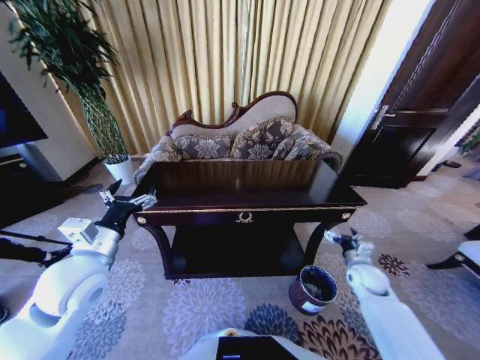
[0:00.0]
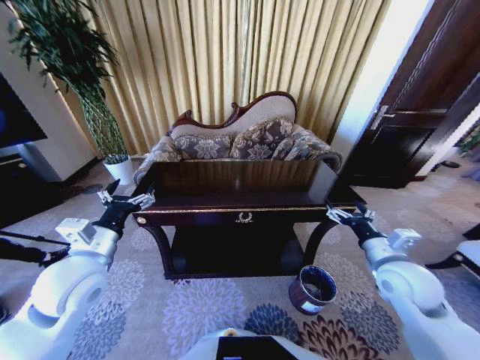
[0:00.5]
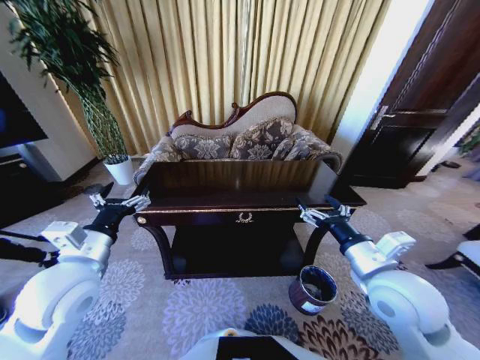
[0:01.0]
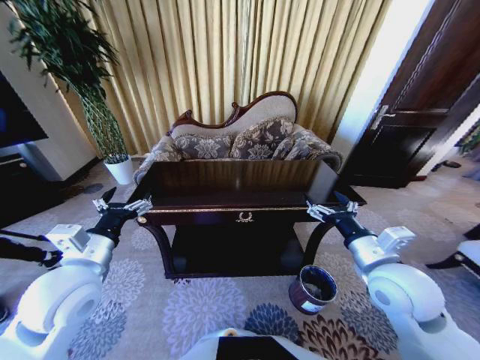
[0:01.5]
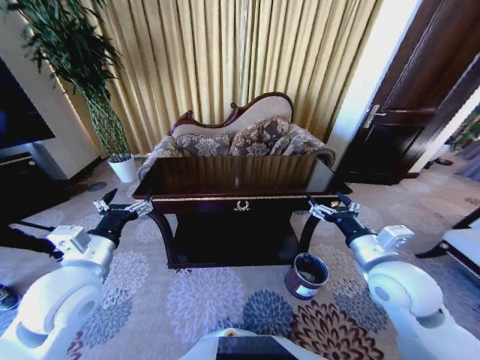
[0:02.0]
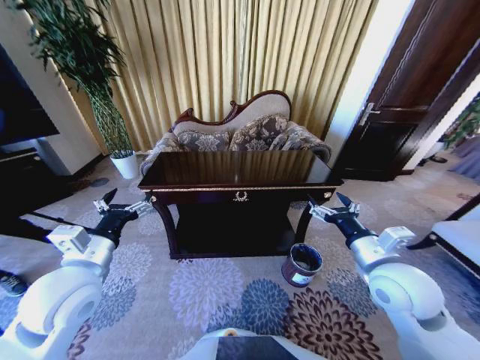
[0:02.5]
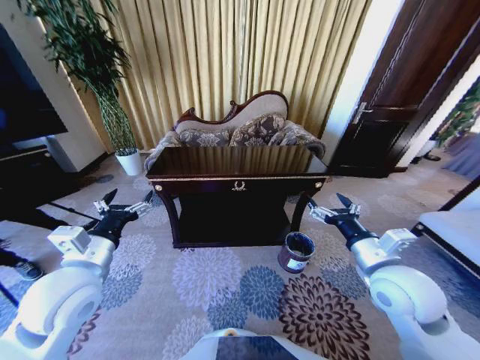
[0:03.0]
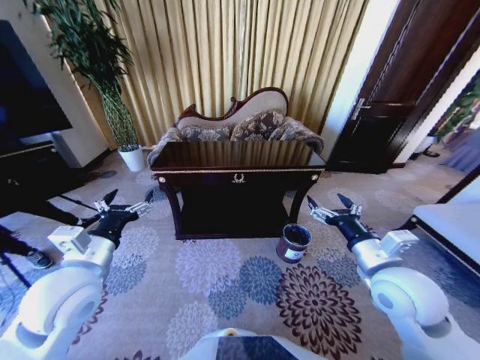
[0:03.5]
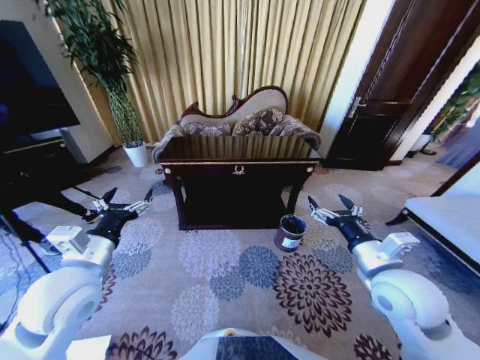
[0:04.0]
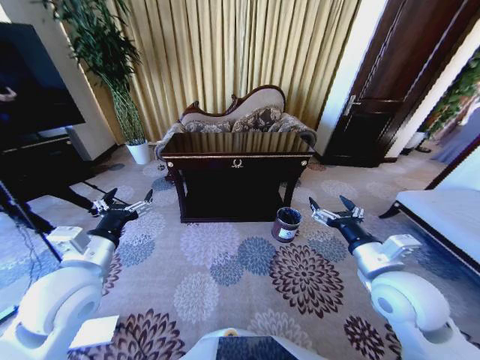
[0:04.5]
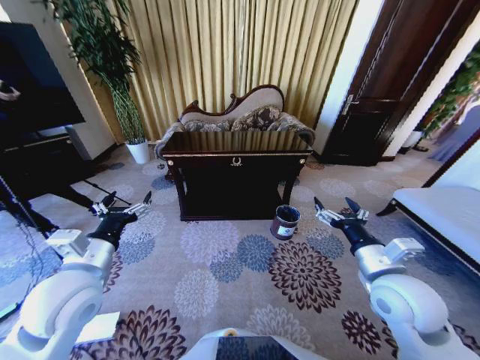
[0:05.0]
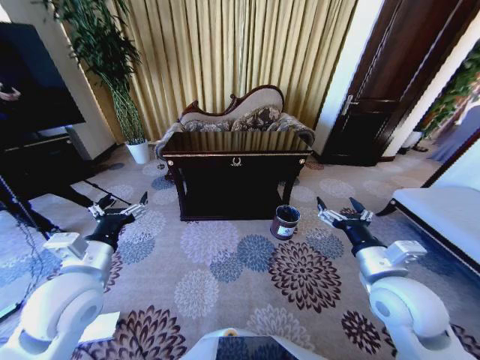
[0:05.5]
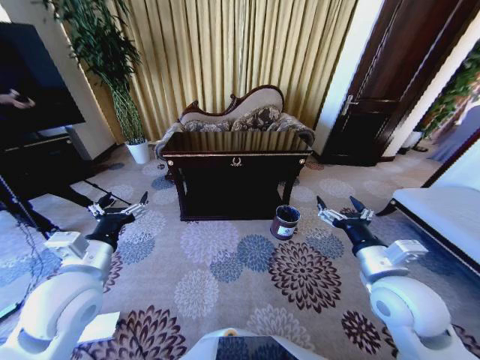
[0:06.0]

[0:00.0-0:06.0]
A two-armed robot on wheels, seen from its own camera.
Task of the whole recording: Move to the front of the table and place the trash on the table into the trash bin.
0:00.0 to 0:02.0: The right gripper goes about 25 cm upward and to the left.

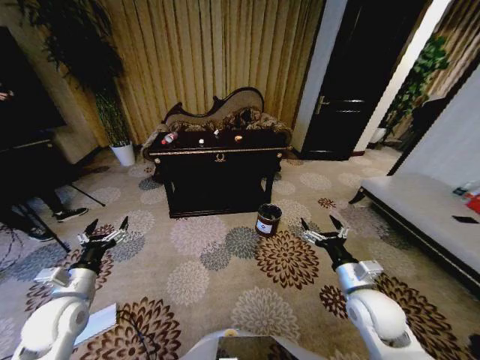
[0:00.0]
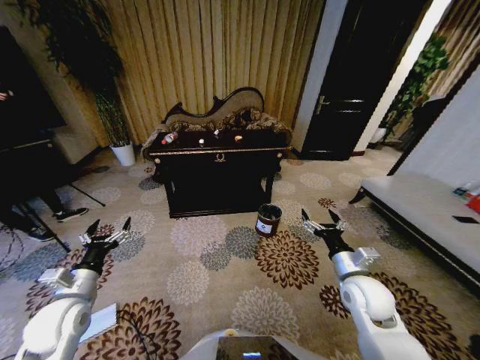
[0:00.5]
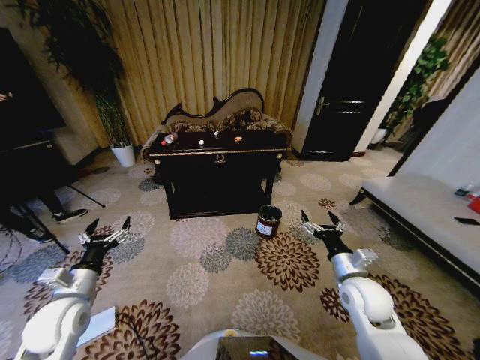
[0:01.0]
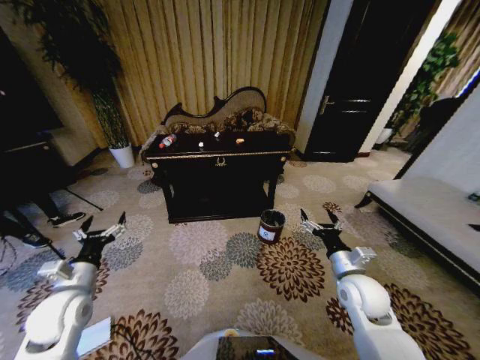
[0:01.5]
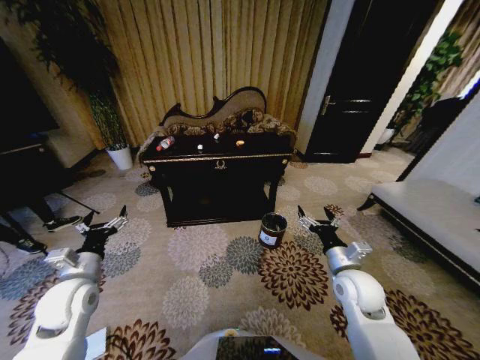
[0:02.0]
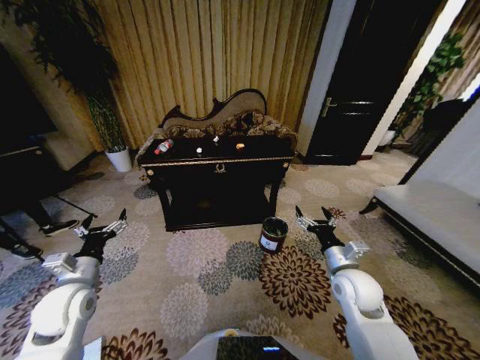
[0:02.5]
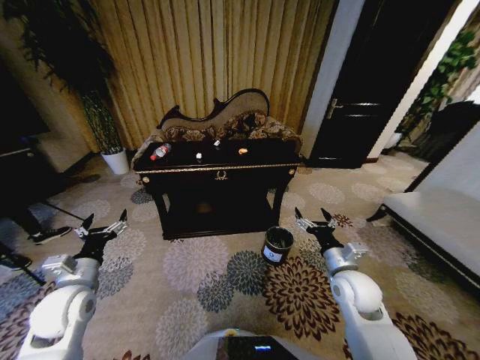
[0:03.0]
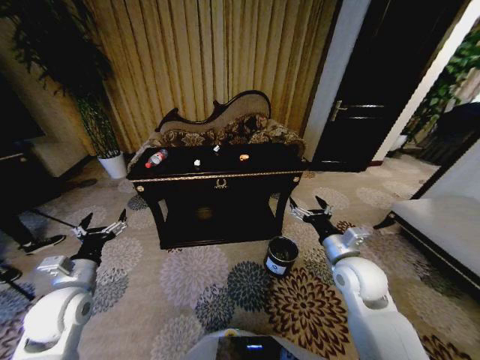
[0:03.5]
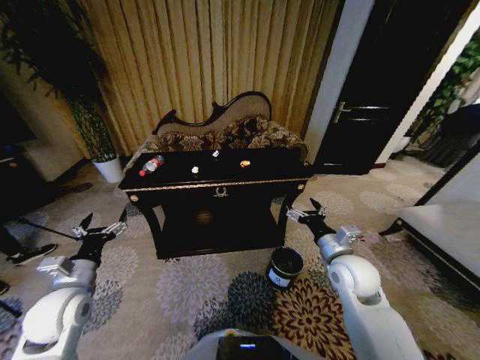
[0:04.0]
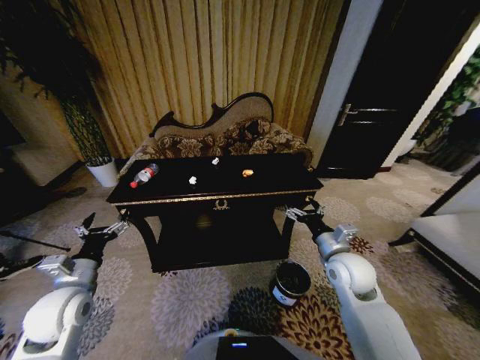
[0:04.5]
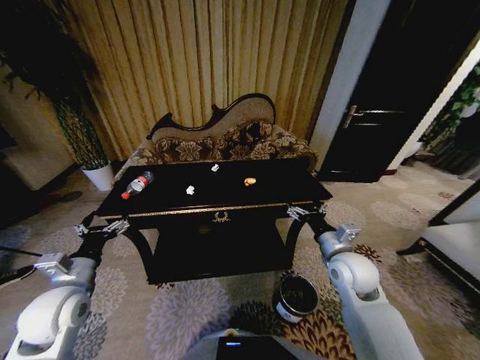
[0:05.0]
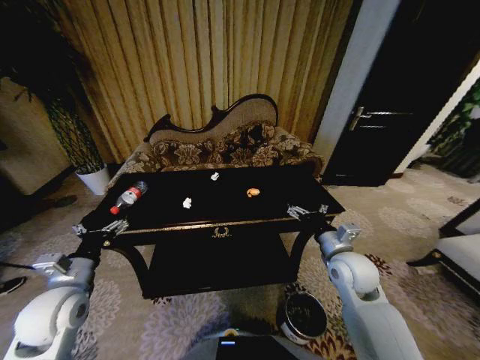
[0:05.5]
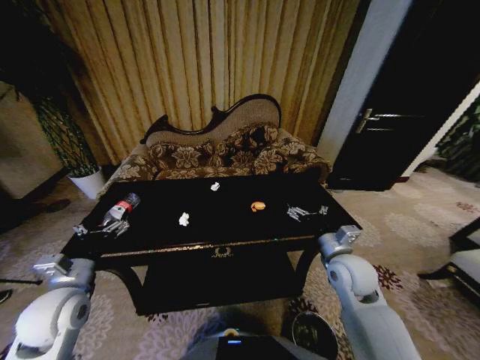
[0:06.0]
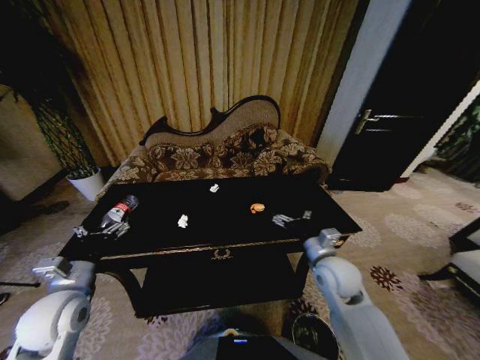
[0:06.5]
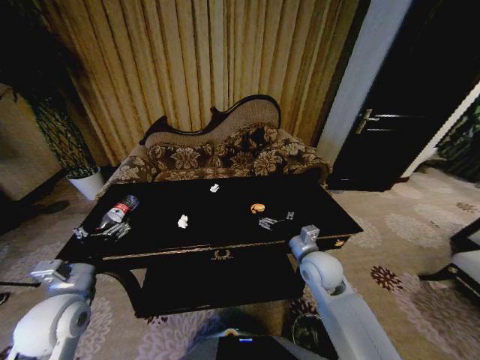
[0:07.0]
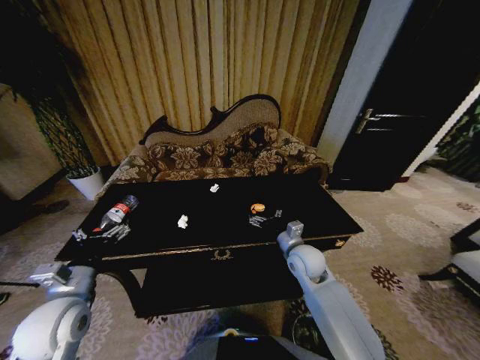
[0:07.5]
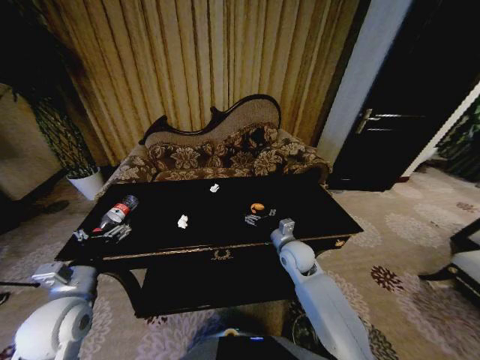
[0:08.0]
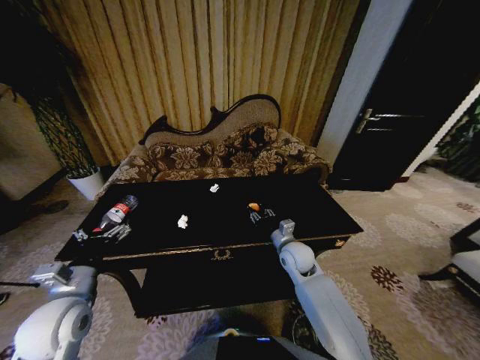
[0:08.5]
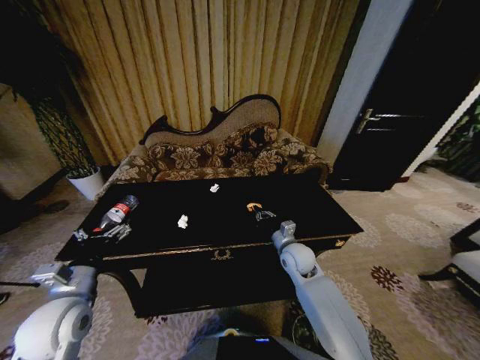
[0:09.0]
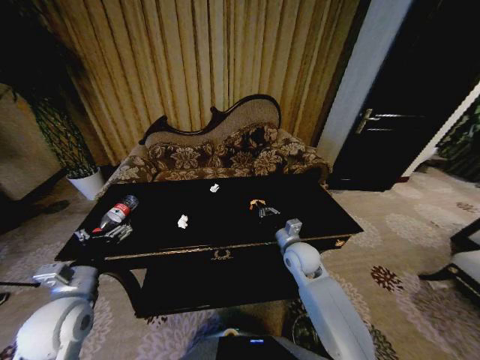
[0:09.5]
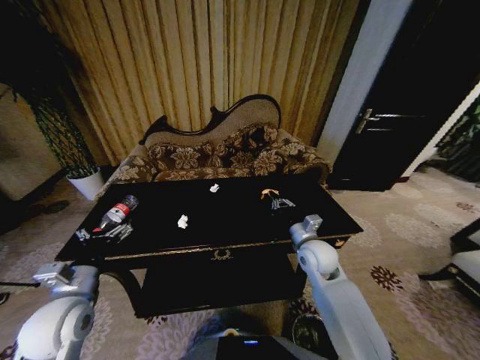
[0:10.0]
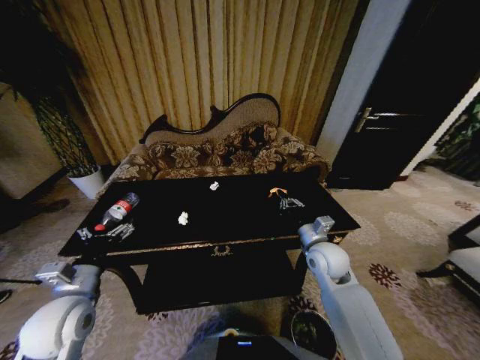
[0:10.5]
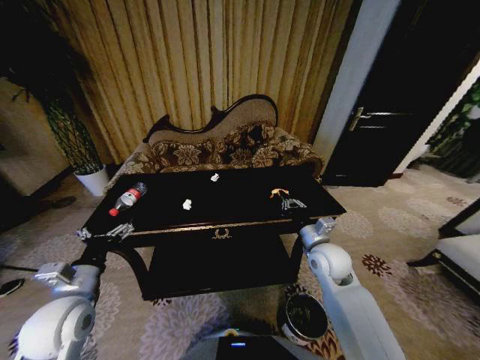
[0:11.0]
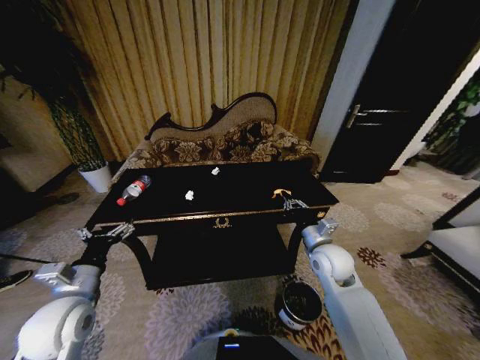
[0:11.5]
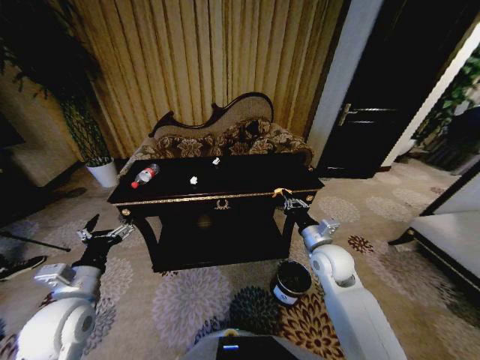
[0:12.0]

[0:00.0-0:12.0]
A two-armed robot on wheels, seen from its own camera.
Task of the whole recording: Move to the front of the table and place the trash on the table into the trash bin.
0:06.0 to 0:08.0: The right gripper moves to the left, forward and downward, roughly 15 cm.
0:08.0 to 0:10.0: The right gripper shifts by roughly 5 cm, and closes up.

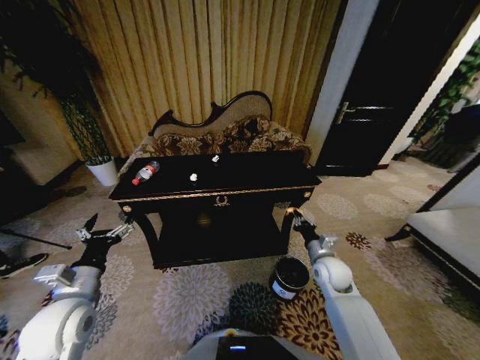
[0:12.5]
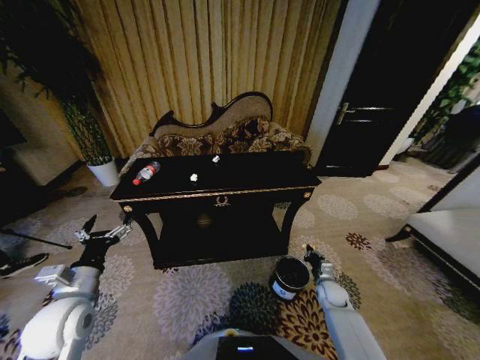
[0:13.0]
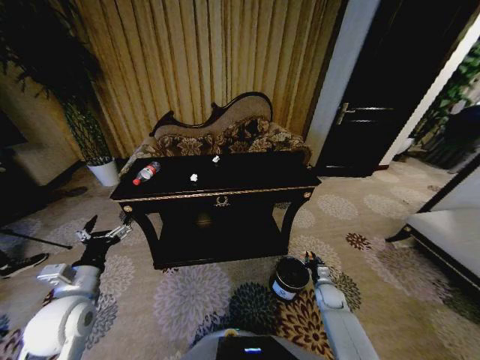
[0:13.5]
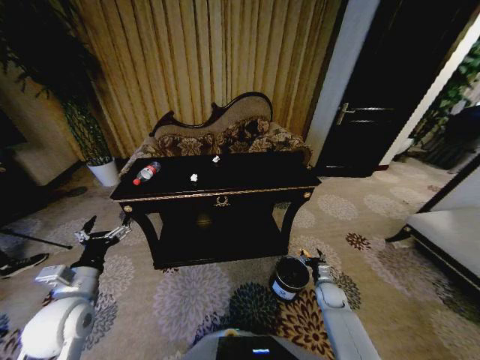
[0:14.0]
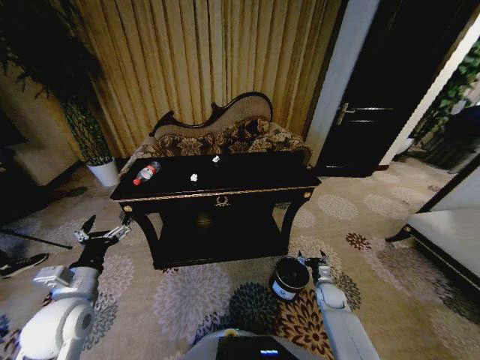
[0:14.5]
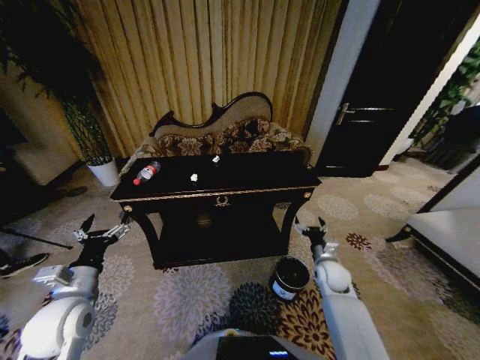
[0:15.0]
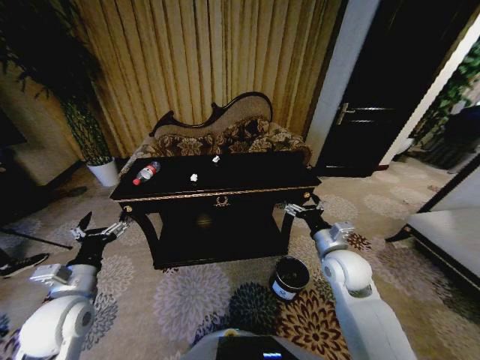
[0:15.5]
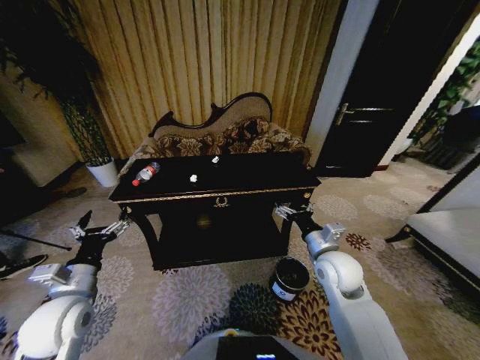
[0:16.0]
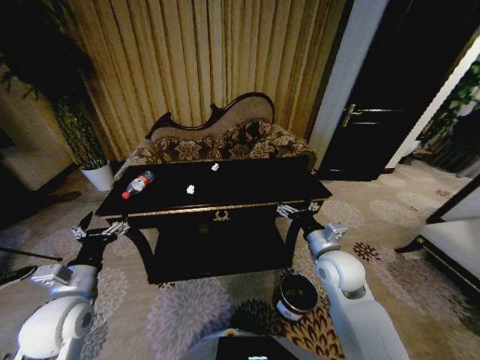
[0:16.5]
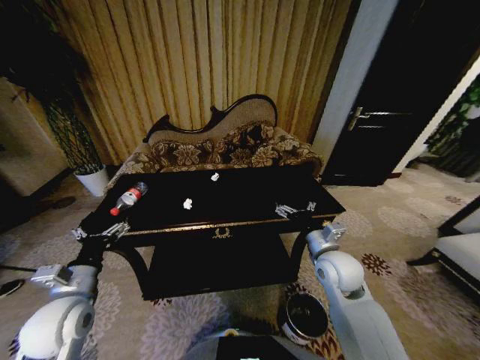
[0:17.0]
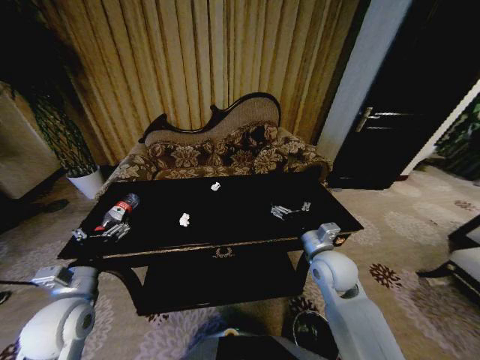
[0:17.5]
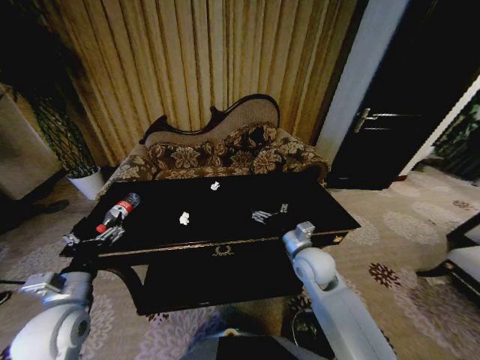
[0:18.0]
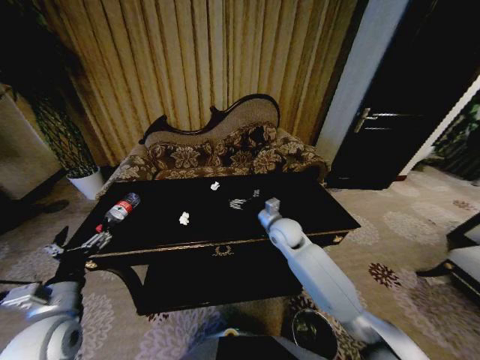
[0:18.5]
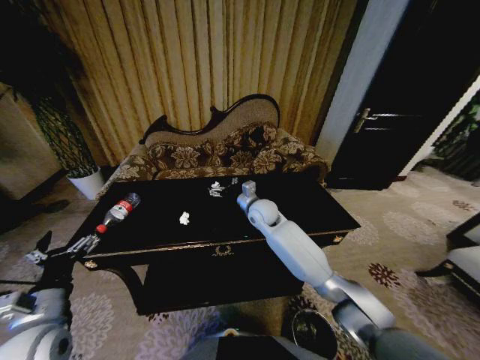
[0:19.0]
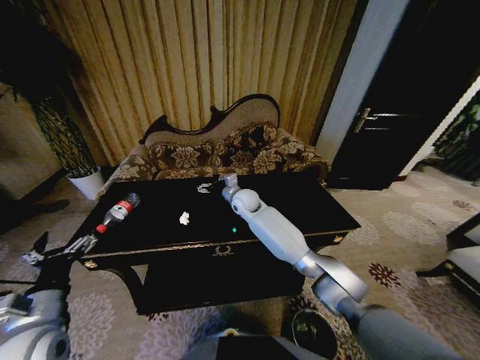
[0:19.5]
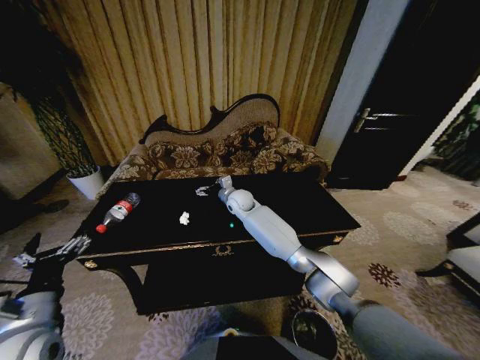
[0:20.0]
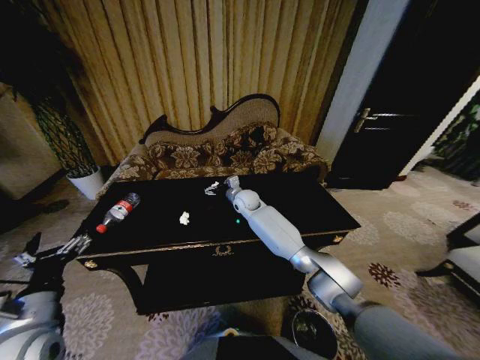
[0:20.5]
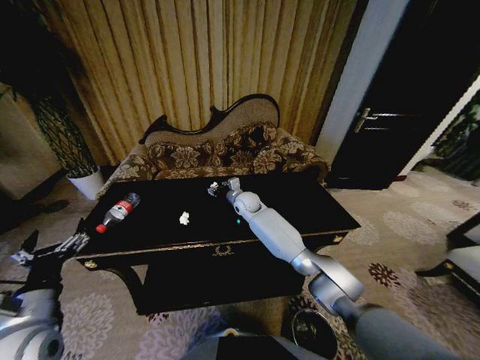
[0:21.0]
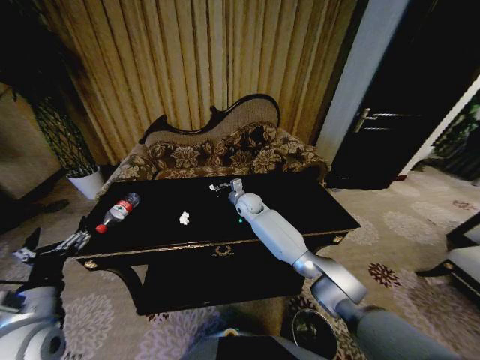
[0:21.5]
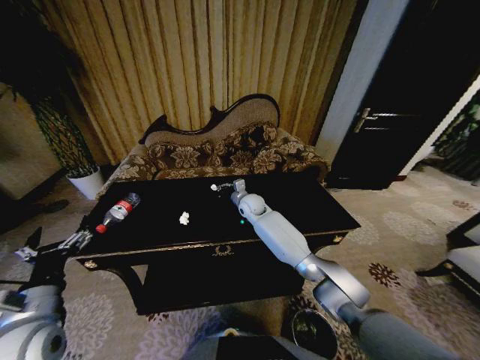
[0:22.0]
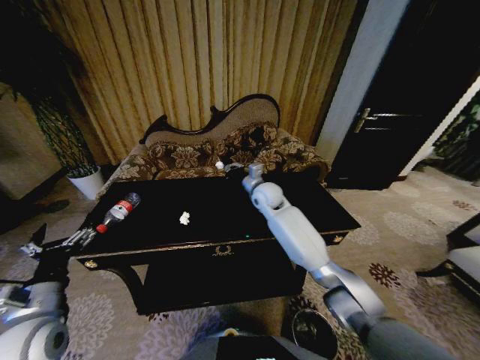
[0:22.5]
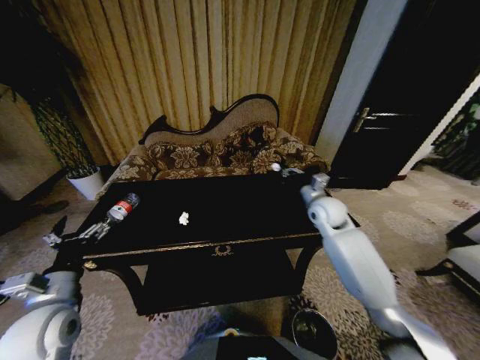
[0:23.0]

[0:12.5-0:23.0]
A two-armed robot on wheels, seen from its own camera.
Task of the whole recording: Move to the front of the table and place the trash on the table into the trash bin.
0:12.5 to 0:14.5: The right gripper shifts some 15 cm downward, and opens up.
0:14.5 to 0:16.5: The right gripper is displaced upward by some 30 cm.
0:16.5 to 0:19.0: The left gripper changes place by roughly 5 cm; the right gripper goes some 25 cm forward and to the left.
0:19.0 to 0:21.0: The right gripper travels forward by roughly 10 cm, and closes.
0:21.0 to 0:23.0: The right gripper heads to the right and backward, covering approximately 25 cm, and closes up.
